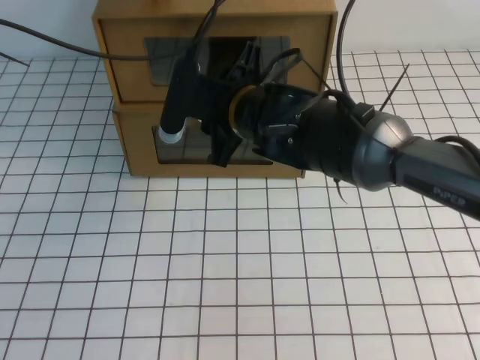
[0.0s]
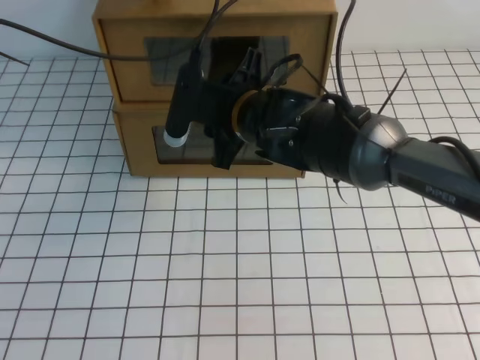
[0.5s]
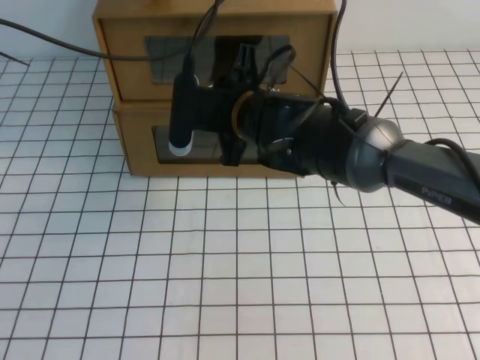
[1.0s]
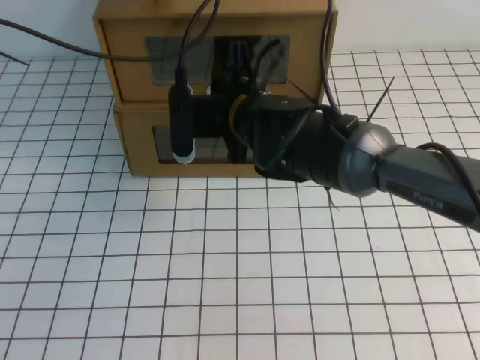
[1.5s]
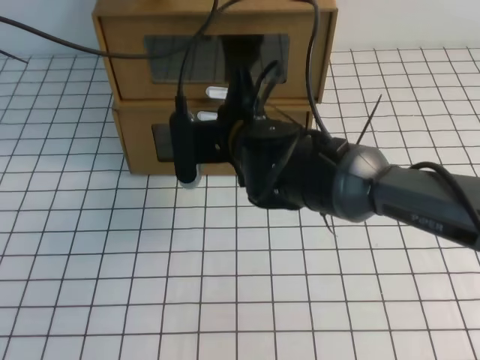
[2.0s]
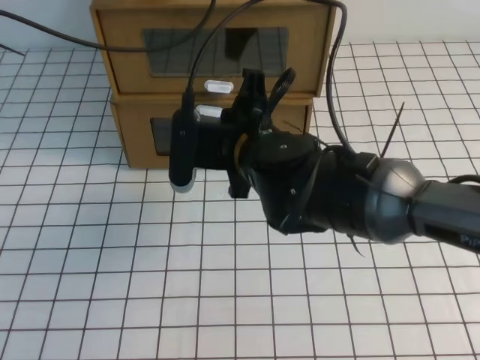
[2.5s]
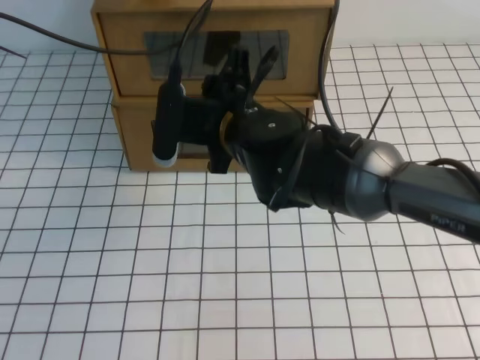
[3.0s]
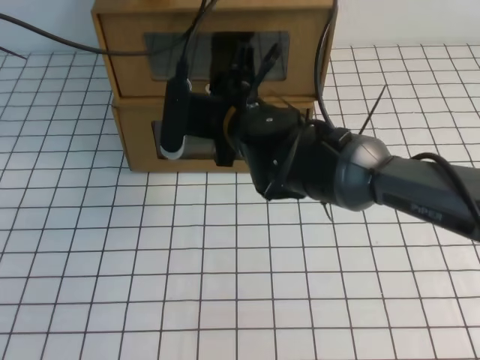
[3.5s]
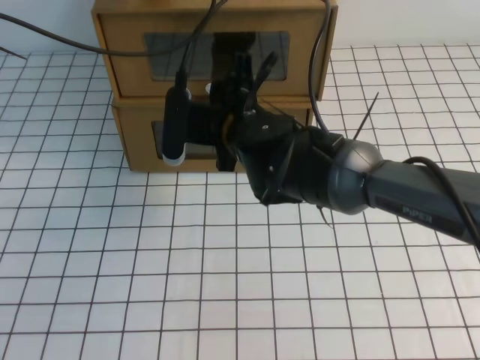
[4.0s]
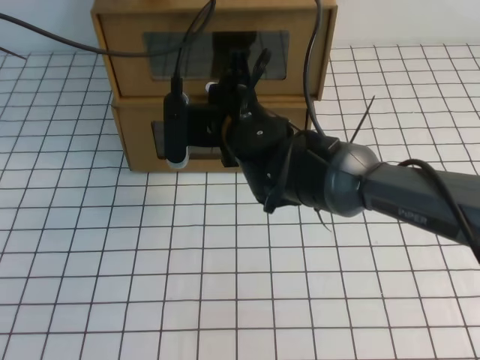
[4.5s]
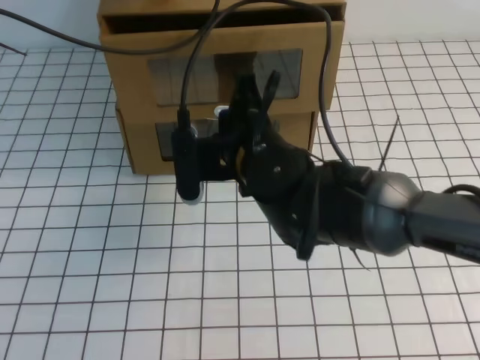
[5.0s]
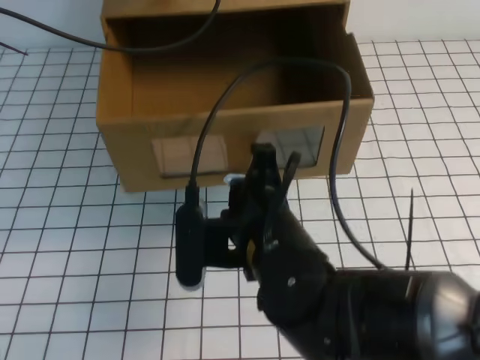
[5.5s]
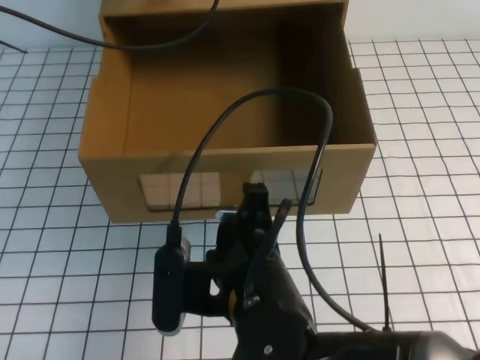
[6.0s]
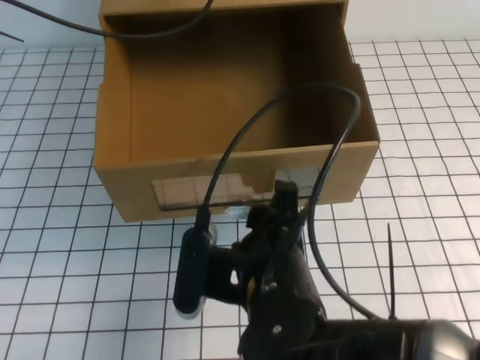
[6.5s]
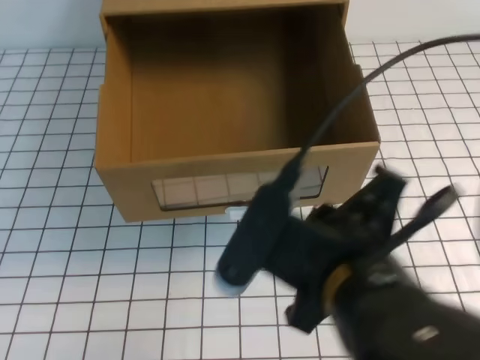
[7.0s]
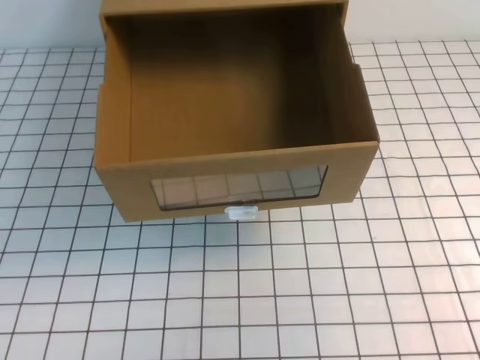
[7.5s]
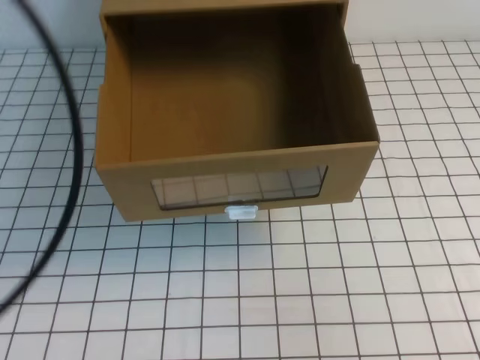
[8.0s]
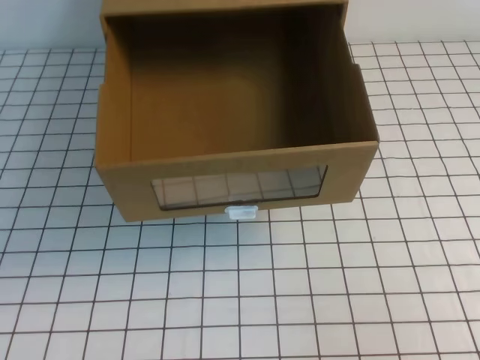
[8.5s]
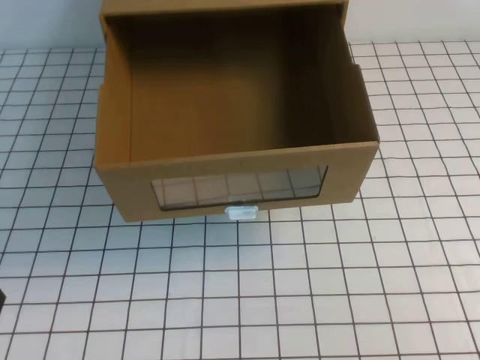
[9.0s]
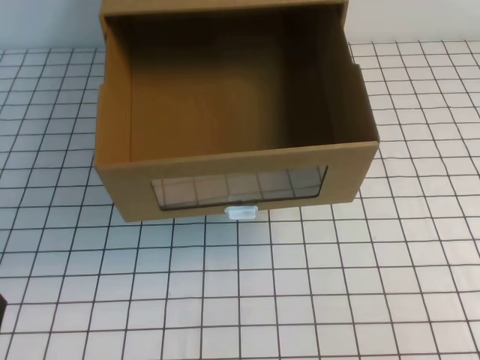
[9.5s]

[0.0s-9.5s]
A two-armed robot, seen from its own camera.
Task of the whole recording: open the shoebox on the white tablecloth.
0.0s to 2.0s: The right gripper closes.
2.0s to 4.0s: The right gripper opens its fingers.
4.0s to 5.5s: The right gripper goes about 15 cm backward, and closes up.
5.5s to 7.5s: The right gripper goes approximately 25 cm to the right and upward, and opens and closes again, while the left gripper shifts about 20 cm backward and upward.
7.5s to 9.5s: The right gripper heads backward, downward and to the right, covering some 20 cm. The left gripper moves downward and backward, approximately 40 cm.
